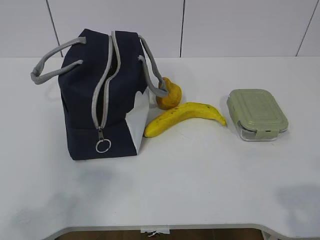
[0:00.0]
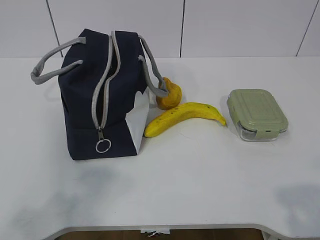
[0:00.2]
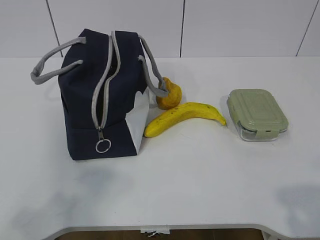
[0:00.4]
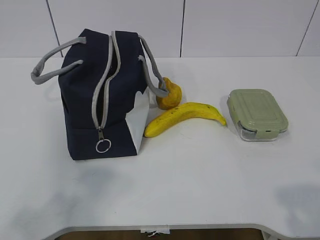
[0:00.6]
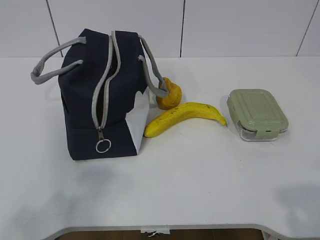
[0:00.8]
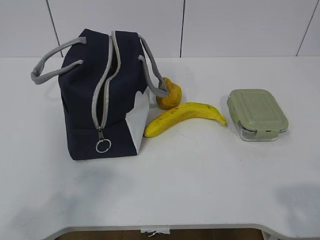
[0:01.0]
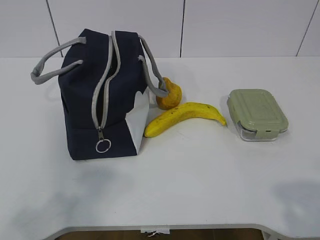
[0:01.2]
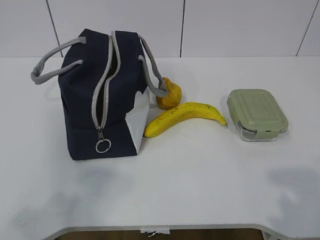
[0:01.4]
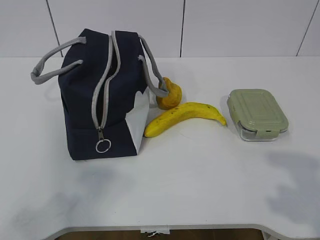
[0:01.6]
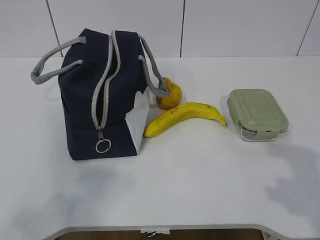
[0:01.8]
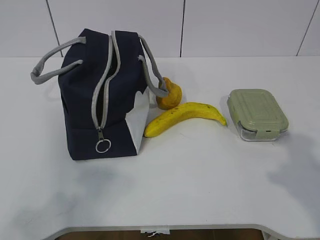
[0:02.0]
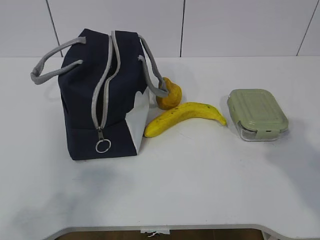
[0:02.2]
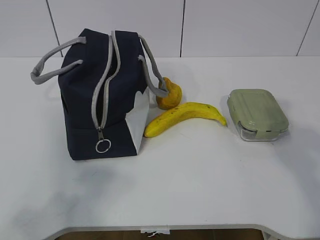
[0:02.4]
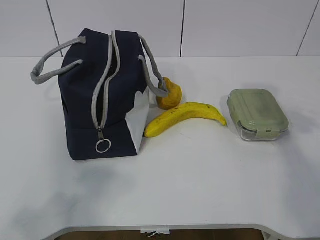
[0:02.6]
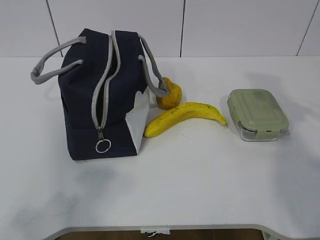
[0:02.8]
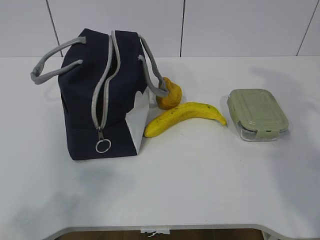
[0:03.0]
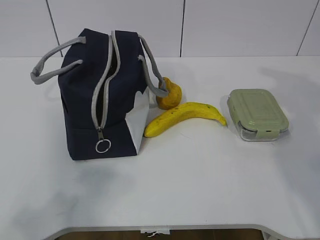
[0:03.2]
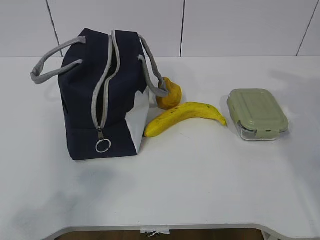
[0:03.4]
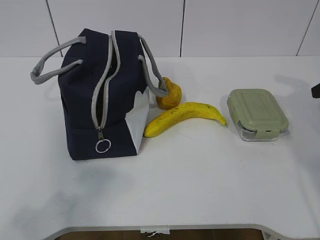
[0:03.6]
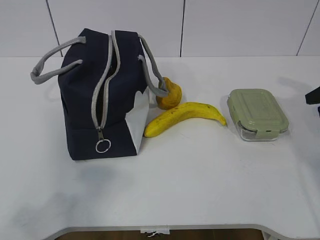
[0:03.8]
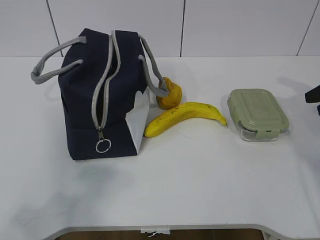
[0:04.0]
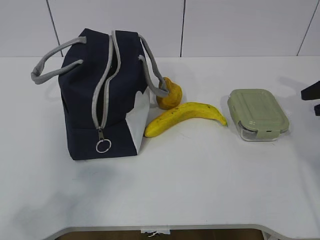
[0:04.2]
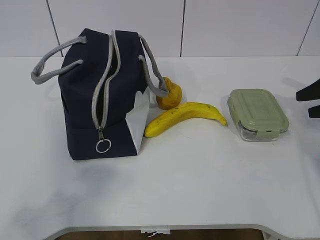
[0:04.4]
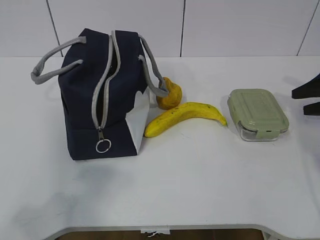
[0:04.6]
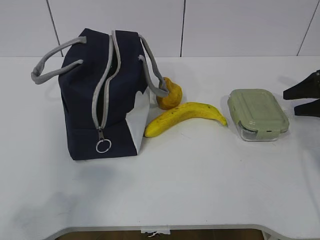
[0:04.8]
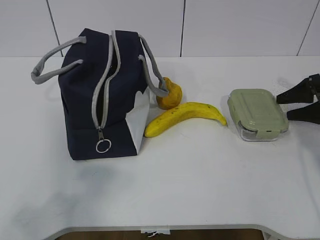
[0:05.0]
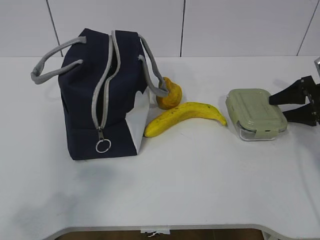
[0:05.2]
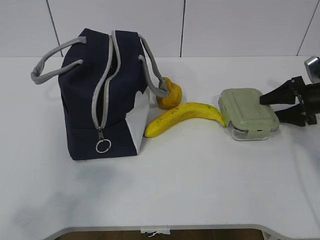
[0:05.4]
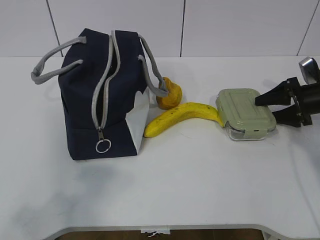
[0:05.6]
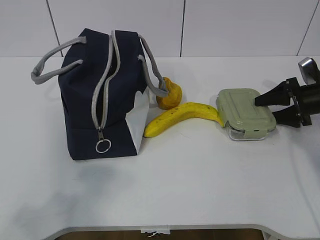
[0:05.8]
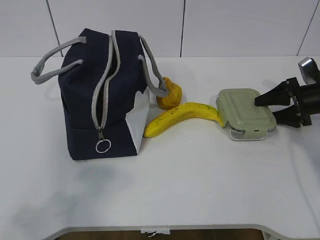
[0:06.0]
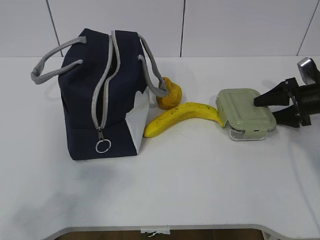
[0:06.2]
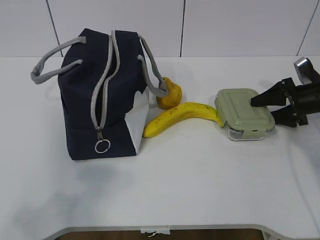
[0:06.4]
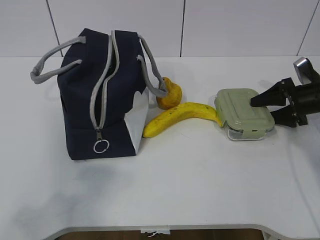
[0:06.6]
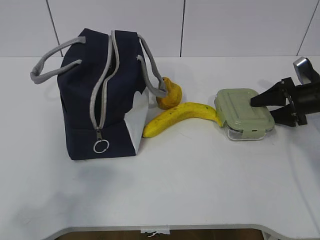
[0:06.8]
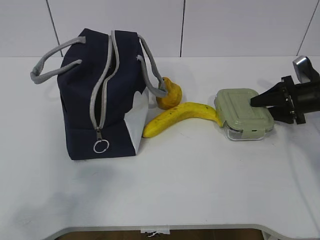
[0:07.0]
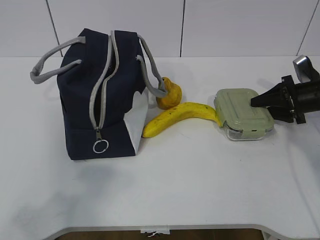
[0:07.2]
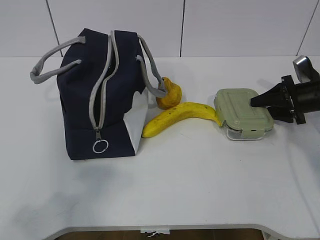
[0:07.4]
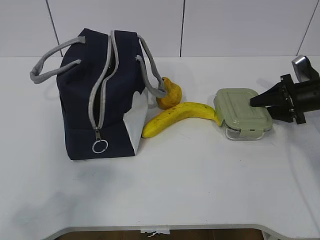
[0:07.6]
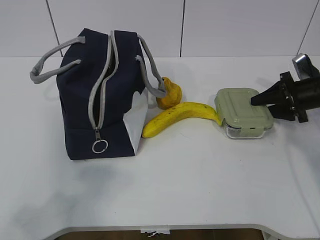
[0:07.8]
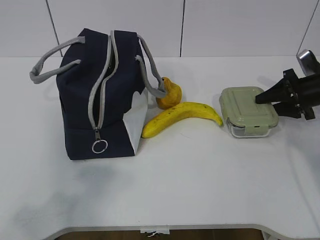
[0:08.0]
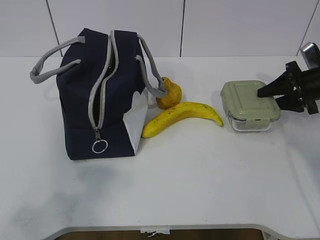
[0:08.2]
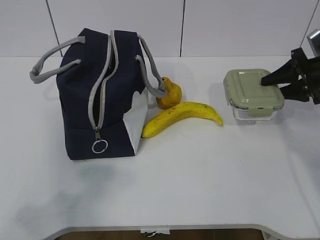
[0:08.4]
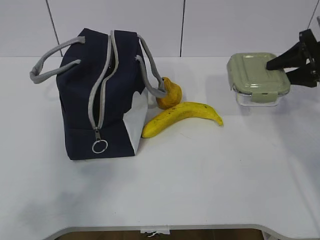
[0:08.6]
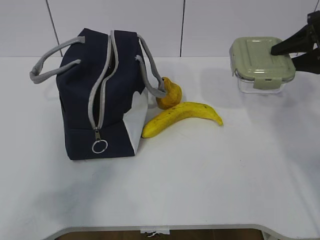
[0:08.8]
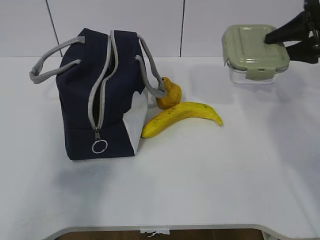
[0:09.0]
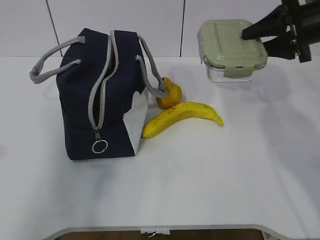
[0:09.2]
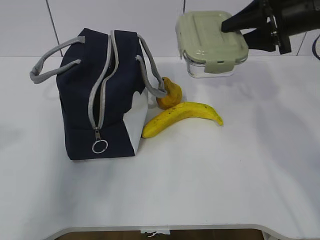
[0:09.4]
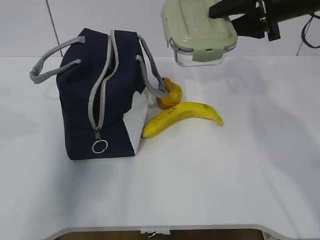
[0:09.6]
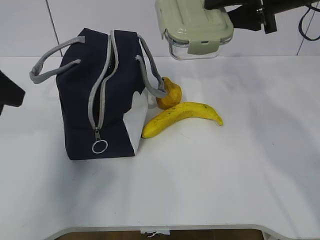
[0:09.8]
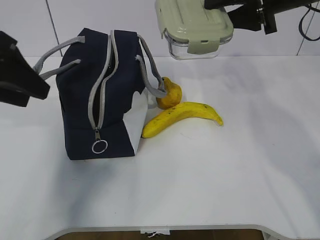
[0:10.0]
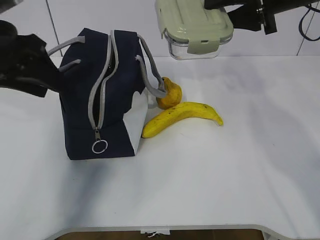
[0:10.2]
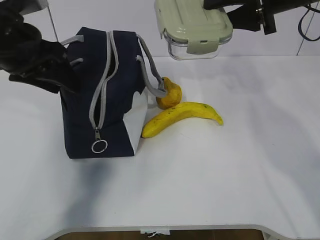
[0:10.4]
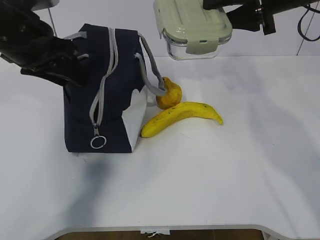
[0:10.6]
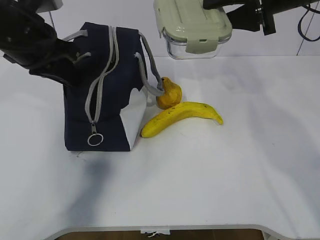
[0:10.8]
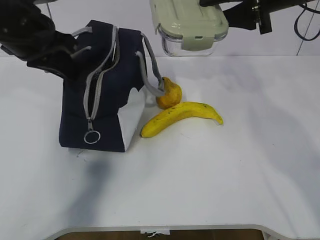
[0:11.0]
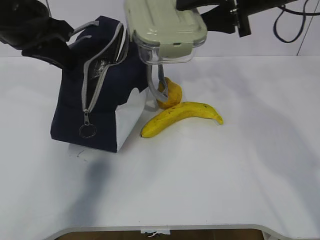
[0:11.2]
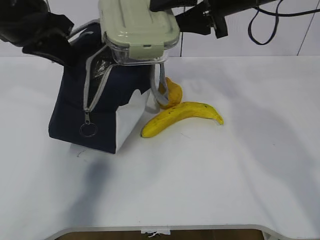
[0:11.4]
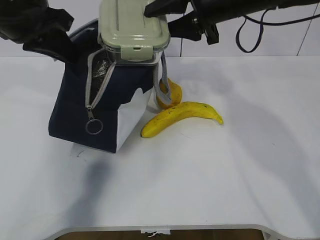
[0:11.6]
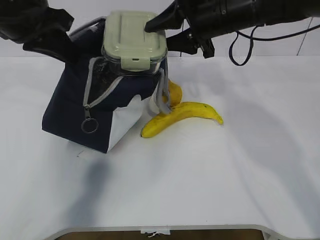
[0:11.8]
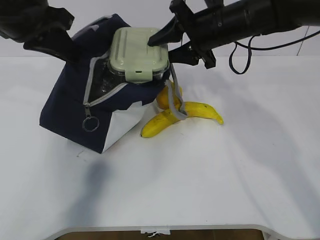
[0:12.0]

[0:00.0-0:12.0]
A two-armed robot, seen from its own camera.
Step, 0:00.0 to 0:06.4: Grab the lunch box with your right hand.
Step, 0:06.6 to 0:09.6: Grab the lunch bag with your left hand.
0:01.6 to 0:03.0: The right gripper travels forward by roughly 25 cm.
0:03.0 to 0:04.4: The right gripper is displaced downward, forward and to the right by about 20 cm.
0:04.4 to 0:06.0: The right gripper is displaced downward and forward by about 10 cm.
0:06.0 to 0:07.6: The right gripper closes its fingers.
0:07.6 to 0:09.0: The left gripper shifts by approximately 5 cm; the right gripper goes some 15 cm upward.
0:09.0 to 0:10.4: The left gripper shifts approximately 25 cm forward. Meanwhile the right gripper shifts some 15 cm to the left and upward.
0:10.4 to 0:12.0: The right gripper travels to the left and downward by some 10 cm. The left gripper closes its fingers.

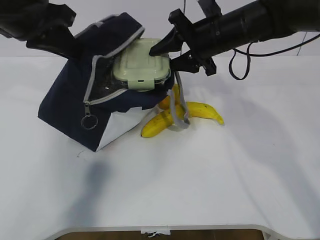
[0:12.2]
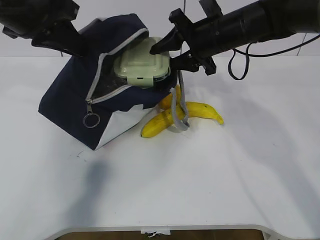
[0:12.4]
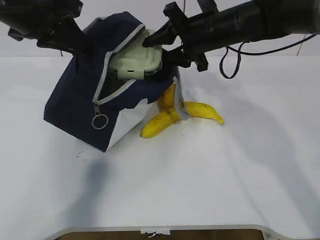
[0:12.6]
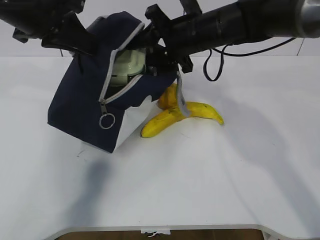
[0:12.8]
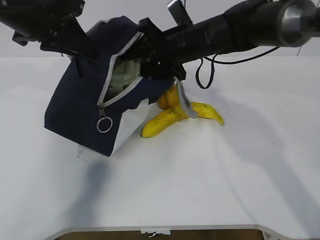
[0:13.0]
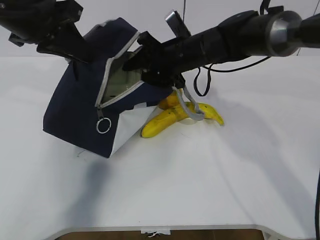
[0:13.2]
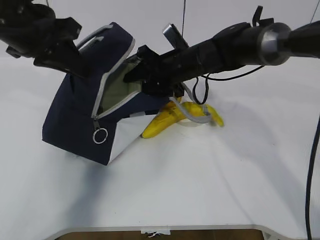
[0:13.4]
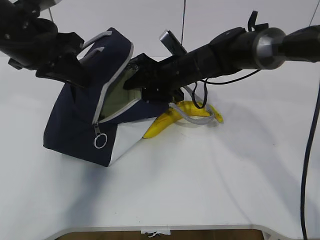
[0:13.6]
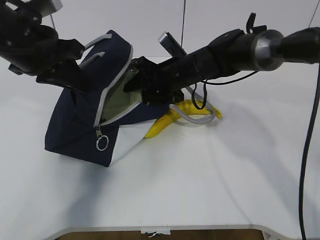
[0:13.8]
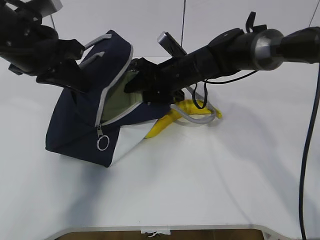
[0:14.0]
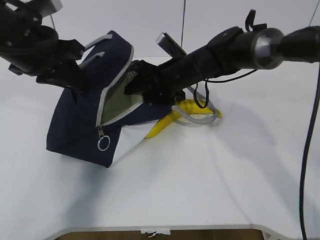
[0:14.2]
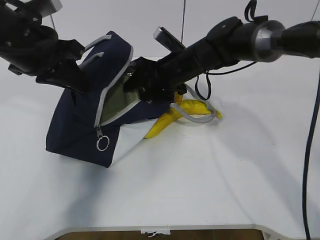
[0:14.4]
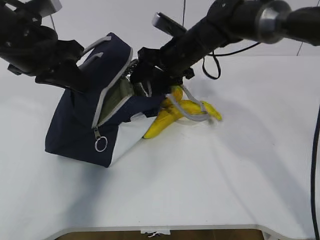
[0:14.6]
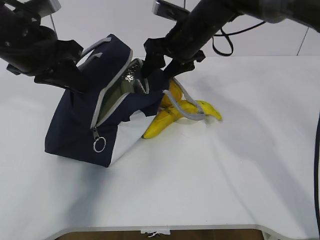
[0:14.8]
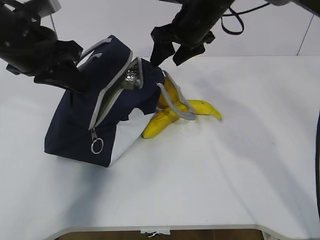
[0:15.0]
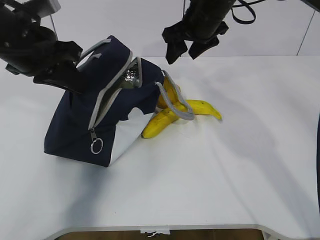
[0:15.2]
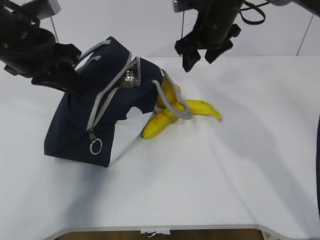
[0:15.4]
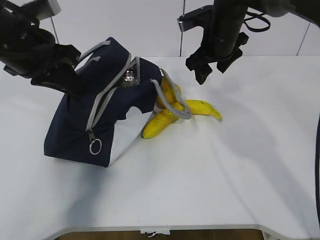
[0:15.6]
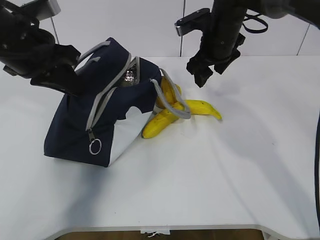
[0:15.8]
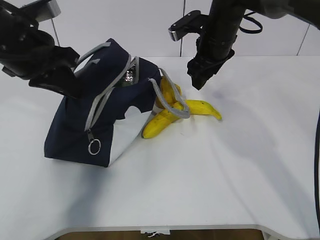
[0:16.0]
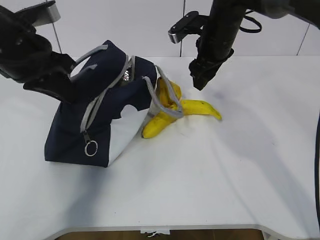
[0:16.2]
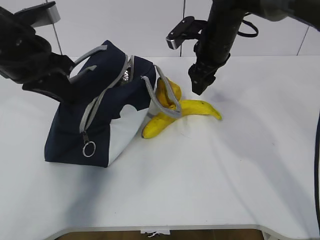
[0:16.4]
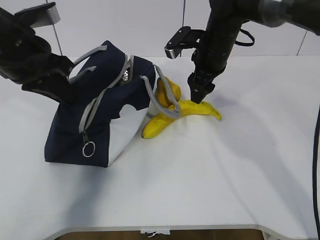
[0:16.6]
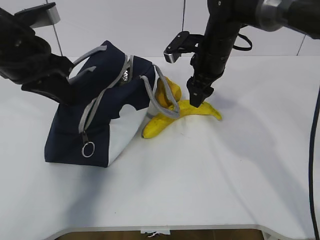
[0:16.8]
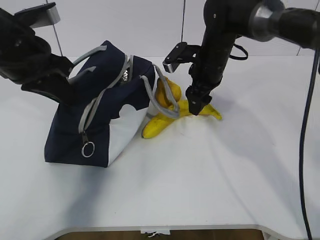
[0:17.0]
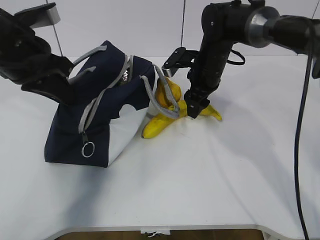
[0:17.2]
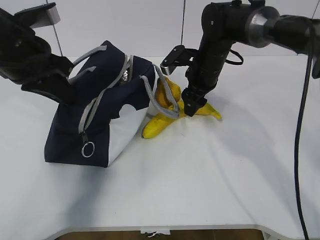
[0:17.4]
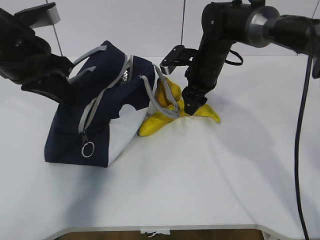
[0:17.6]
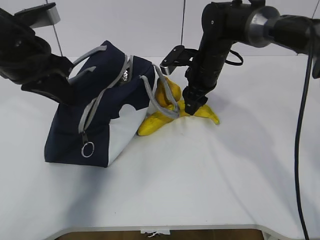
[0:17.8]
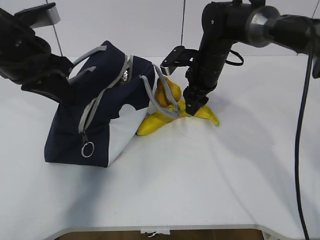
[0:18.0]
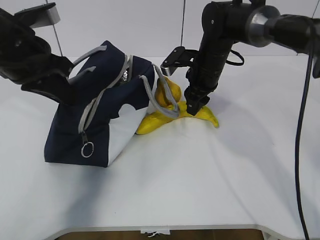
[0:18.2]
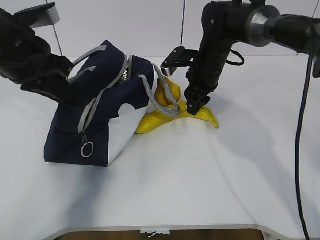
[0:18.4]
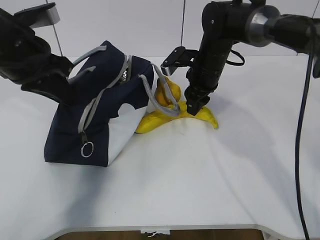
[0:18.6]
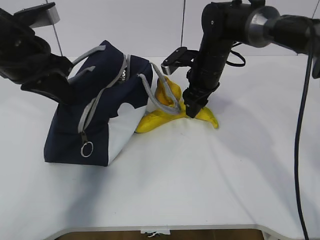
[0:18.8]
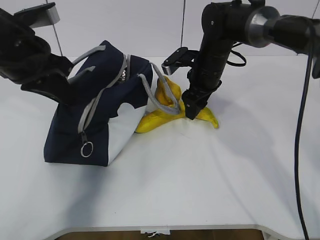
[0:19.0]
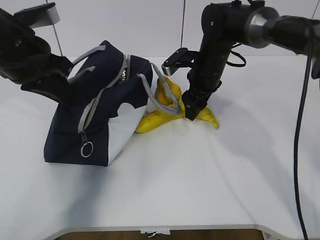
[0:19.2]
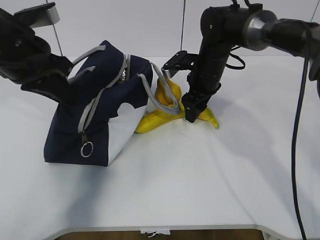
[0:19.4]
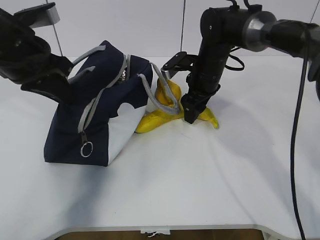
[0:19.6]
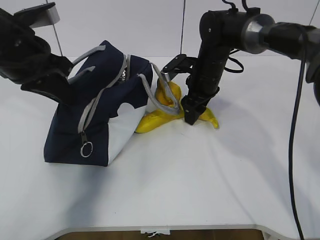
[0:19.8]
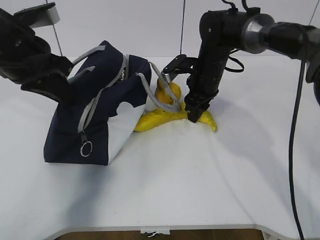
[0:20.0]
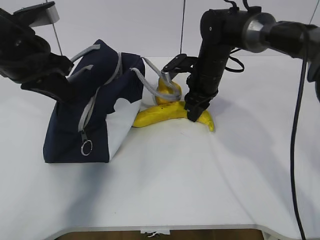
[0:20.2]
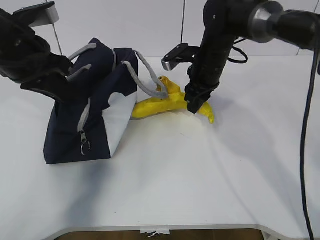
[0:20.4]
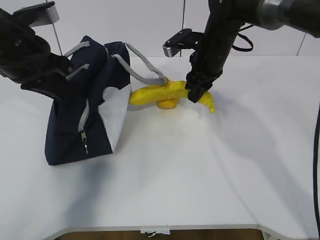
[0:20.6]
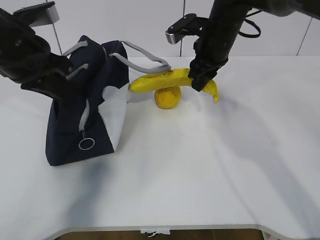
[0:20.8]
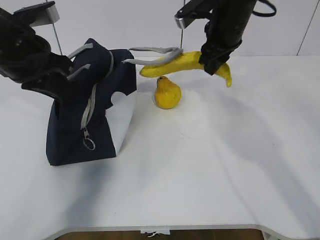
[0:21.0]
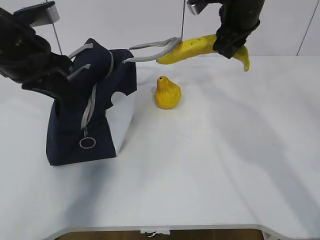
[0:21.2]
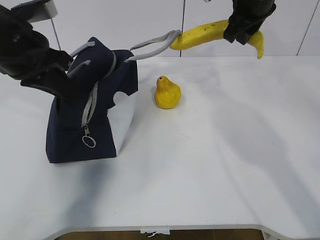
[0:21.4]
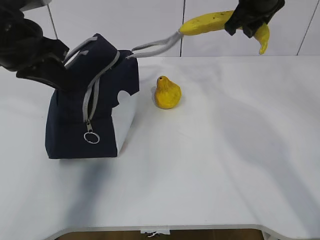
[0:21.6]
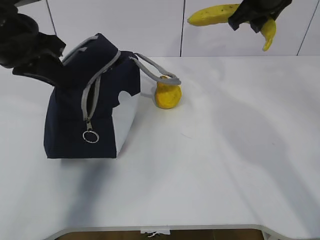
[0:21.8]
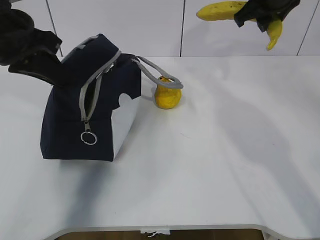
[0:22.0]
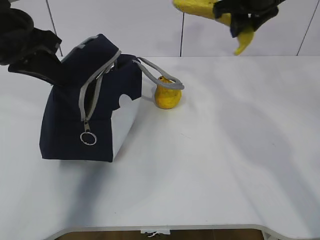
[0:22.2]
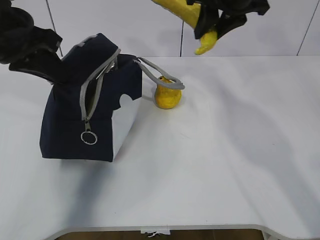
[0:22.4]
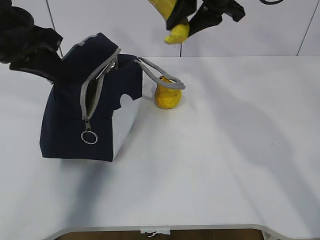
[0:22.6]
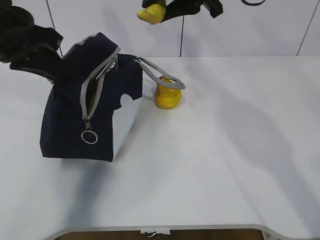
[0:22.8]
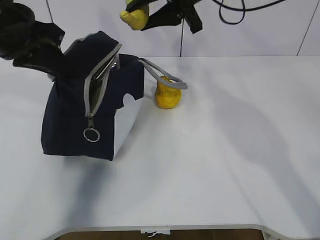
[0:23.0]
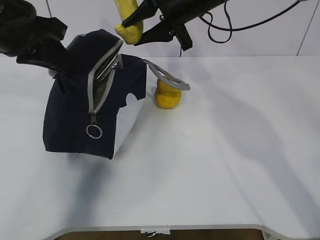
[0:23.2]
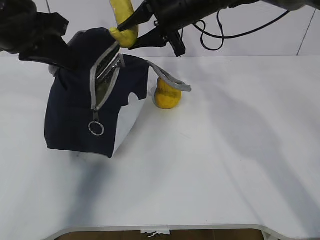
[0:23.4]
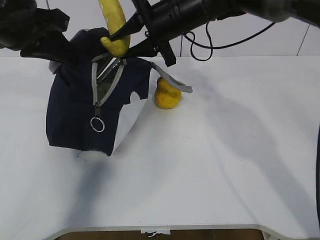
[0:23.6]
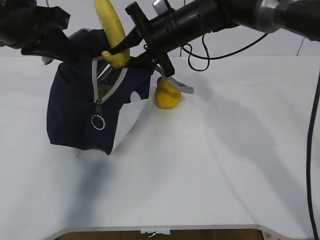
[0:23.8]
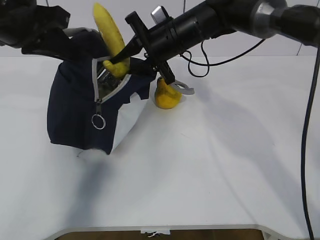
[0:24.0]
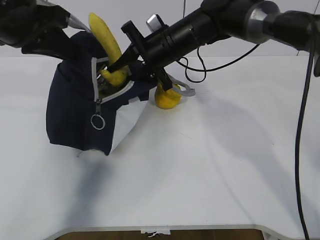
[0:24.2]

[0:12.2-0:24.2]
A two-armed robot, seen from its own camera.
Step, 0:12.6 to 0:16.6: Grab the banana with your right hand.
Step, 0:16.8 to 0:22.4: Place it into the bag with your right hand.
0:12.2 to 0:13.8: The right gripper moves downward and to the left, some 10 cm.
0:13.8 to 0:15.2: The right gripper is displaced upward by approximately 10 cm.
0:15.2 to 0:16.6: The right gripper heads downward, covering roughly 5 cm.
0:16.6 to 0:19.8: The grippers stay close to where they were, moving slightly.
0:19.8 to 0:21.2: The right gripper goes approximately 15 cm upward, and closes up.
0:21.2 to 0:22.6: The right gripper goes some 5 cm upward.
0:22.6 to 0:24.2: The right gripper is displaced downward and to the left by some 15 cm.
